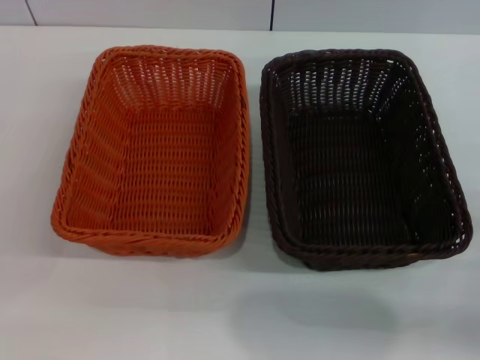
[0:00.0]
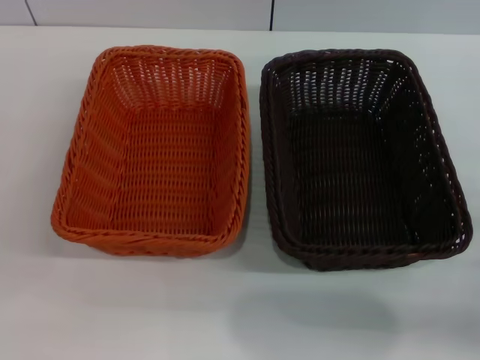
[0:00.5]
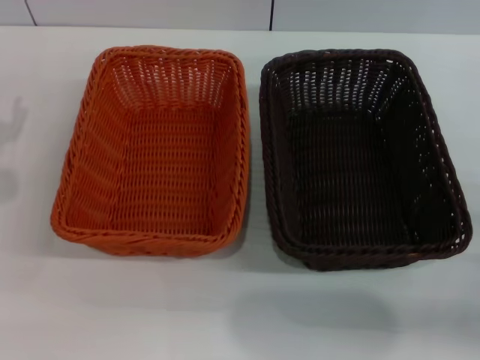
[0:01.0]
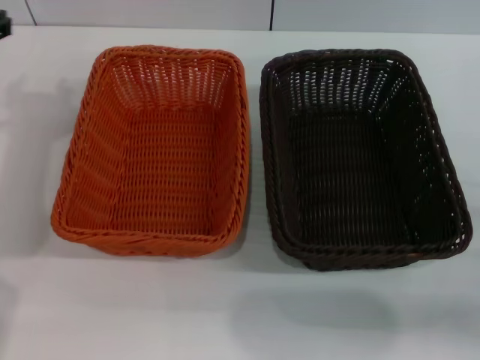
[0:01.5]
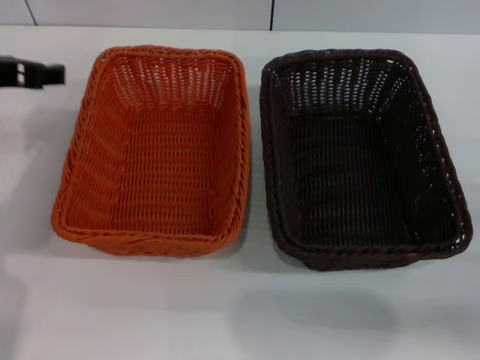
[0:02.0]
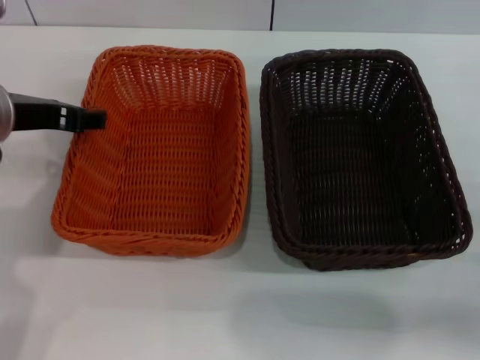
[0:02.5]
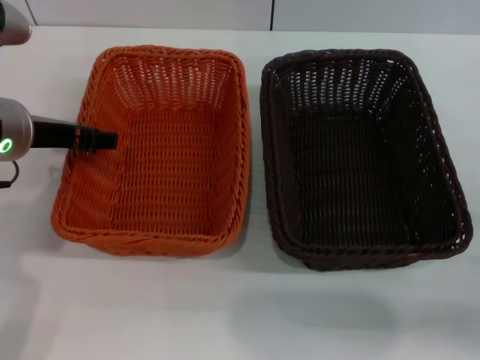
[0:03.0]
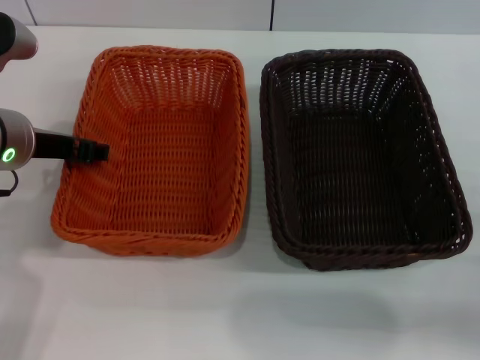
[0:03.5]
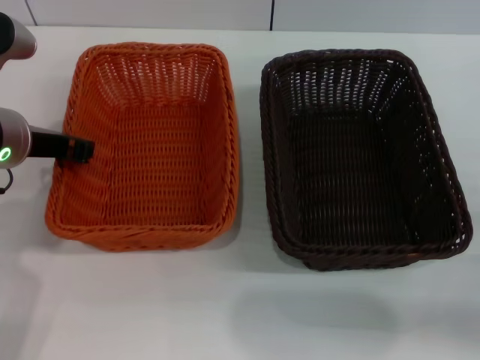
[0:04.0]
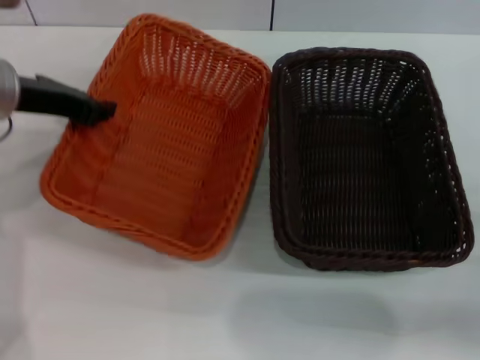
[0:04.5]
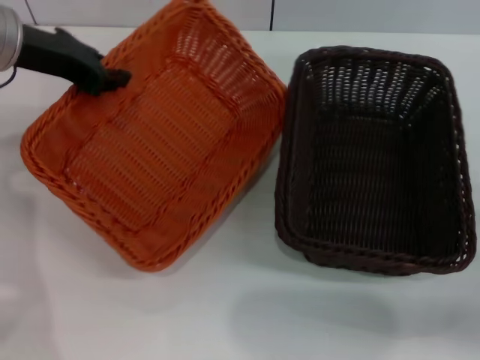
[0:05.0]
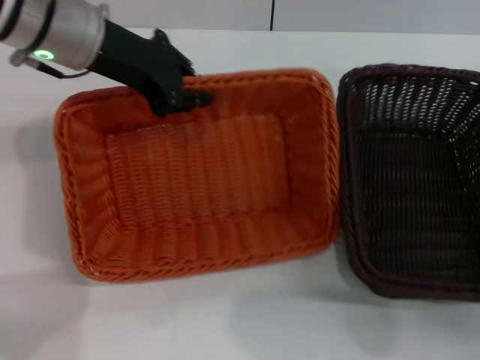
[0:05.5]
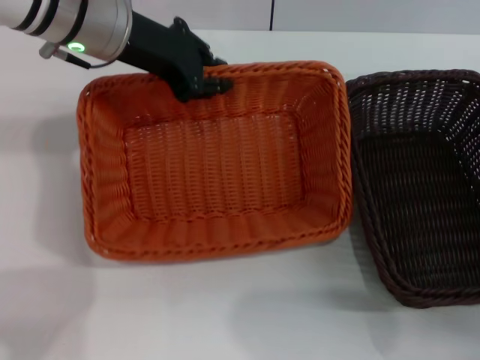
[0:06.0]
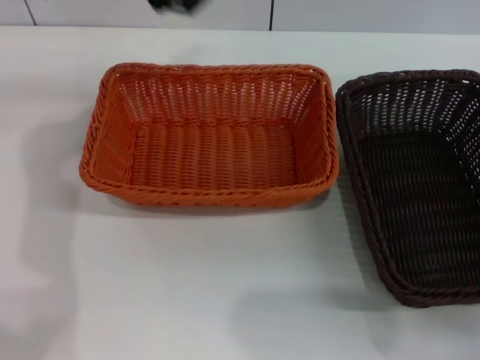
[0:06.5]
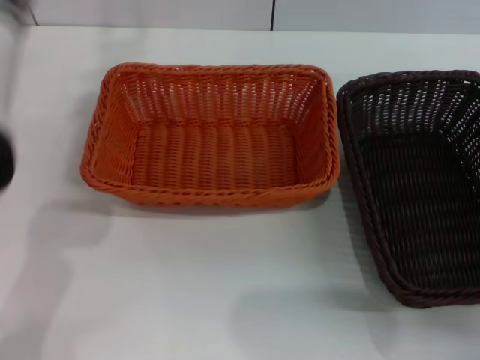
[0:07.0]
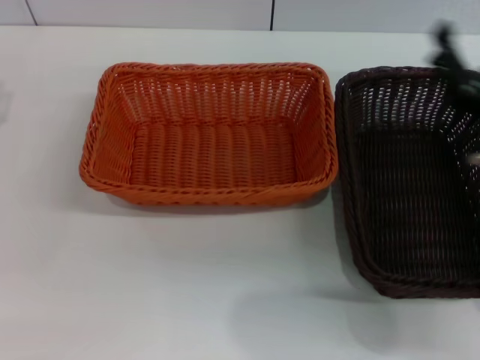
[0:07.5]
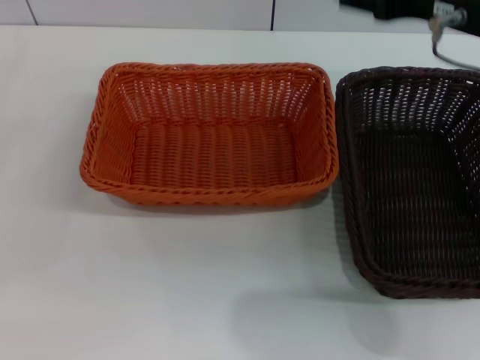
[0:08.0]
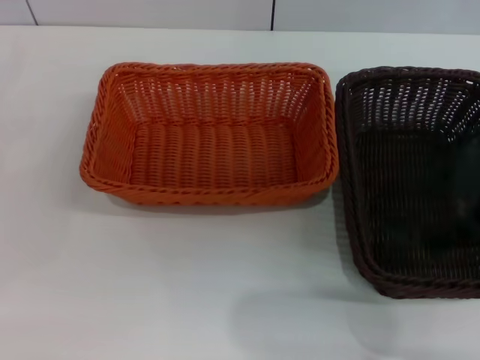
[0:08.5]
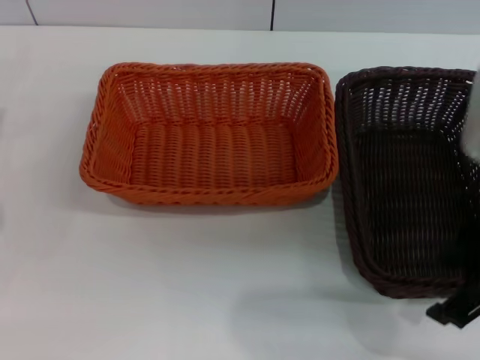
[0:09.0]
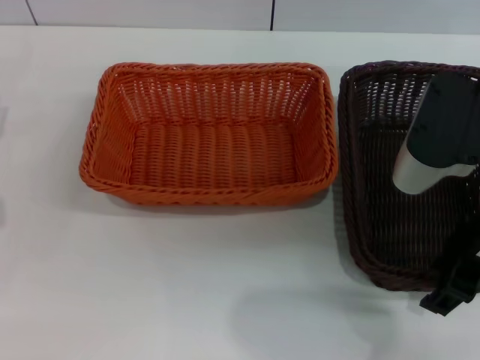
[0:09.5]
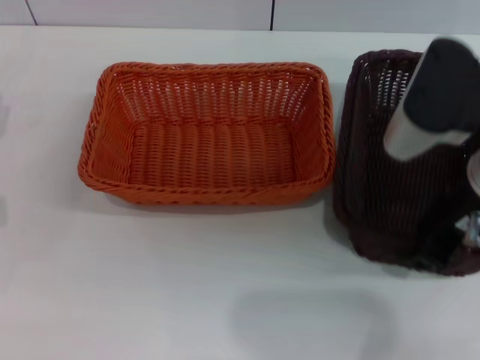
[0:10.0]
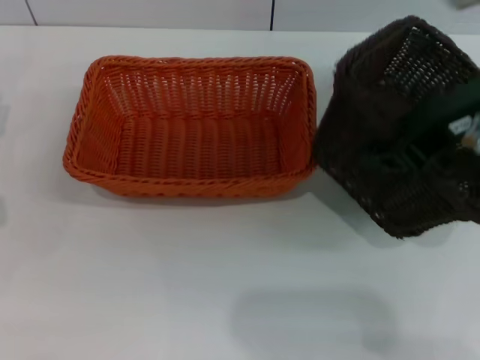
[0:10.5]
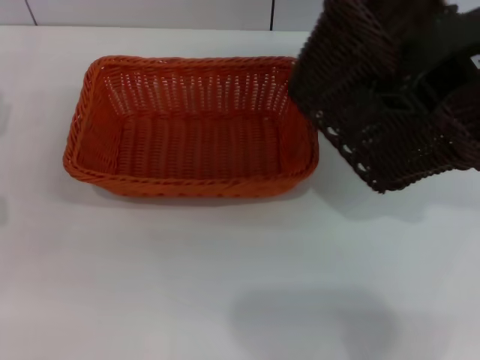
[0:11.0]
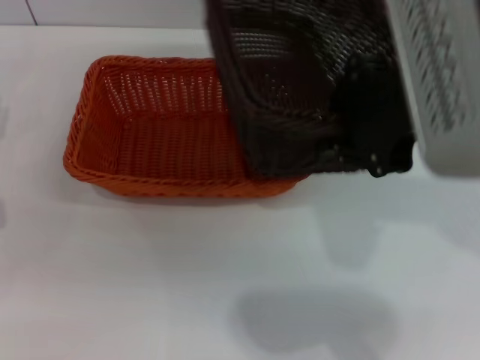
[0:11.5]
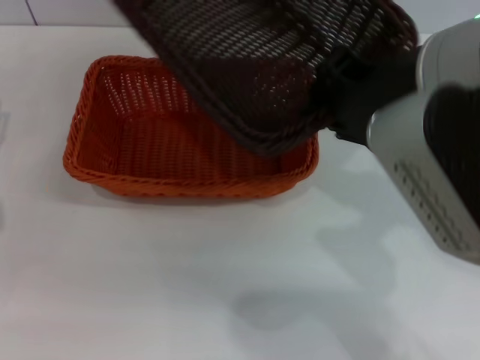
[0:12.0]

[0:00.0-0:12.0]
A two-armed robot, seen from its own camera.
Step, 0:00.0 to 0:04.0: Pick up the light basket with the left gripper.
Step, 0:04.5 to 0:06.0: Place the light basket in the center of view with the left gripper.
Step, 0:06.5 to 0:10.0: Pick up the dark basket with the right gripper.
0:00.0 to 0:02.0: The left gripper heads upward, forward and to the right, covering roughly 25 cm.
0:02.0 to 0:04.0: The left gripper travels downward by roughly 5 cm, and closes its fingers.
0:04.0 to 0:06.0: The left gripper heads forward, to the right and upward, covering about 15 cm.
0:06.0 to 0:08.0: The left gripper travels to the left, backward and downward by roughly 25 cm, and opens. The right gripper is displaced upward, to the left and forward by about 25 cm.
0:08.0 to 0:10.0: The right gripper goes about 5 cm downward, and closes its fingers.
0:10.0 to 0:12.0: The right gripper goes about 10 cm upward and to the left, and closes its fingers.

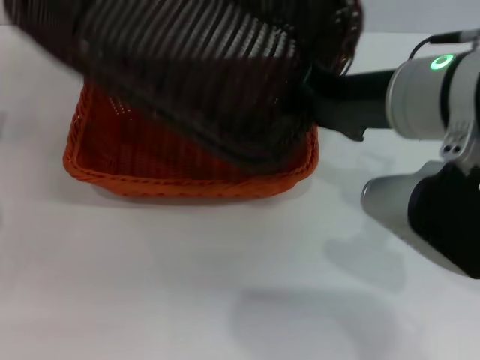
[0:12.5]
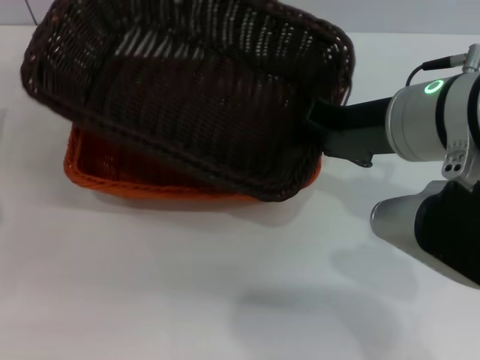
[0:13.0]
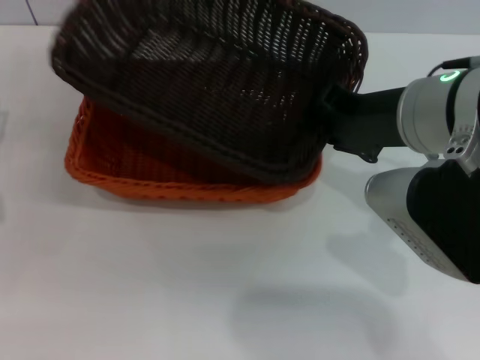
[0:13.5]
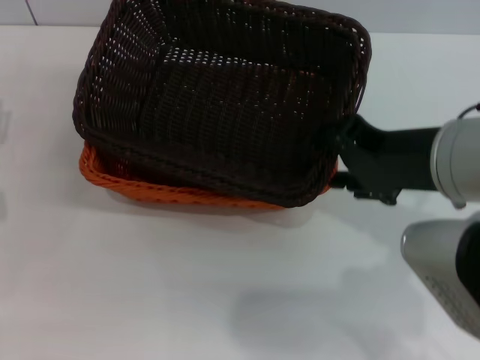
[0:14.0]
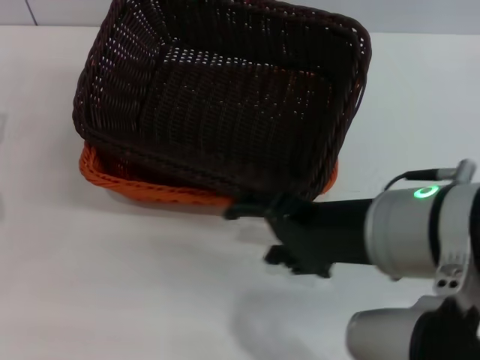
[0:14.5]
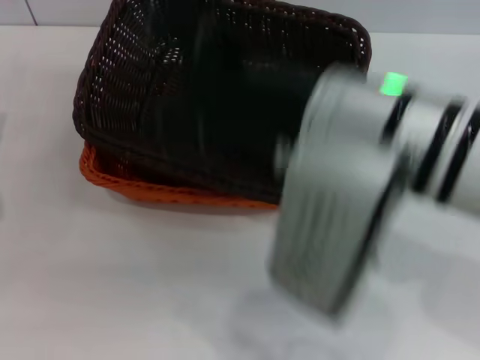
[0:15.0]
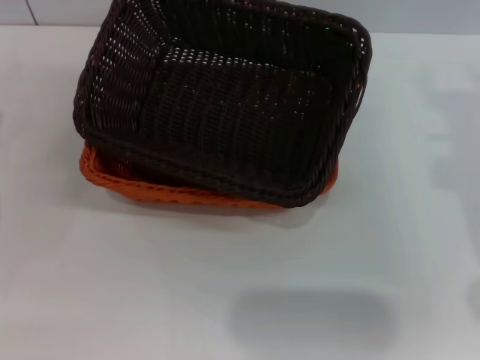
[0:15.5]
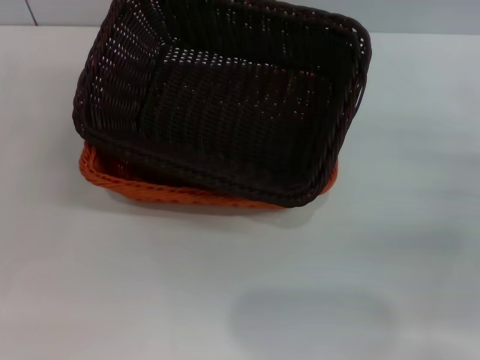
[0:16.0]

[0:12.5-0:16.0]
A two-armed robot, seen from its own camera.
0:12.5 to 0:14.5: The right gripper travels backward by roughly 10 cm, and opens.
0:14.5 to 0:16.0: The right gripper shifts roughly 25 cm to the right and downward.

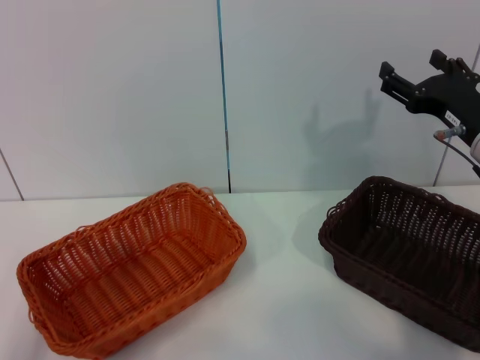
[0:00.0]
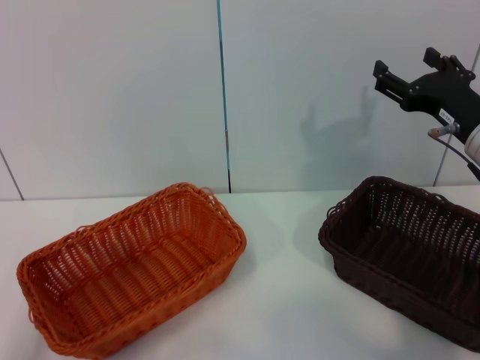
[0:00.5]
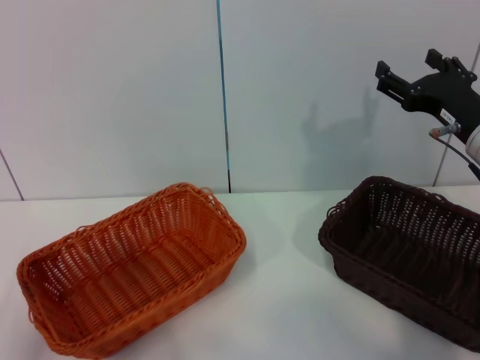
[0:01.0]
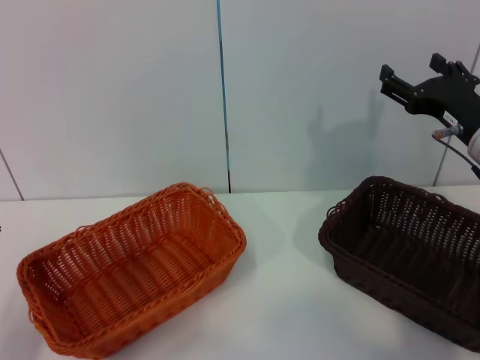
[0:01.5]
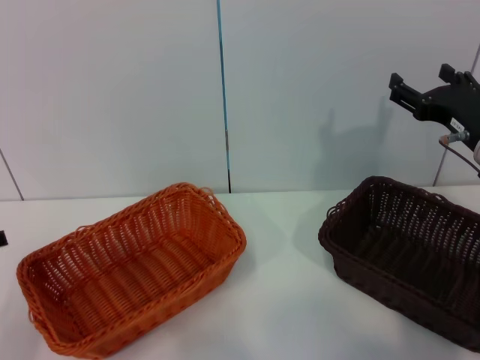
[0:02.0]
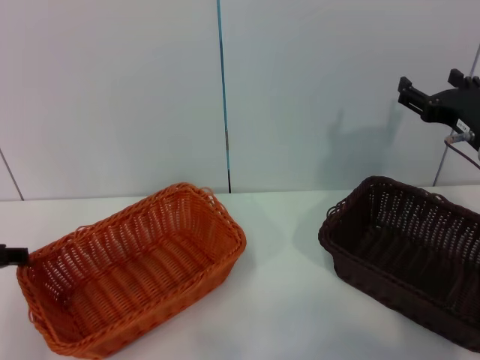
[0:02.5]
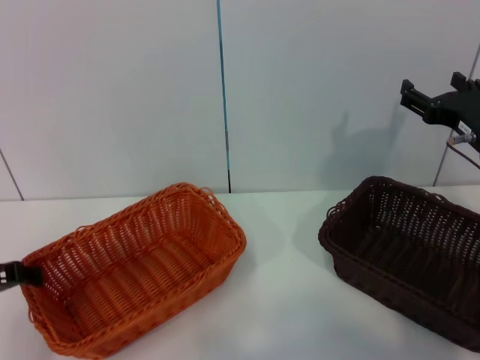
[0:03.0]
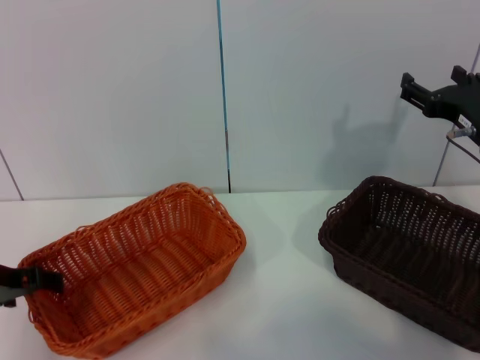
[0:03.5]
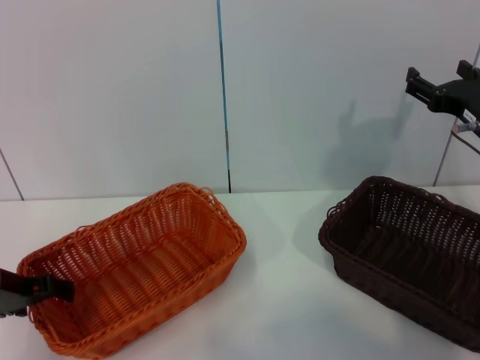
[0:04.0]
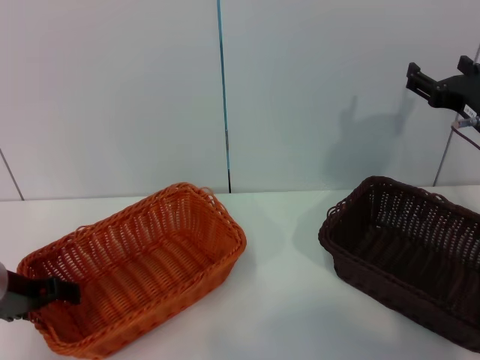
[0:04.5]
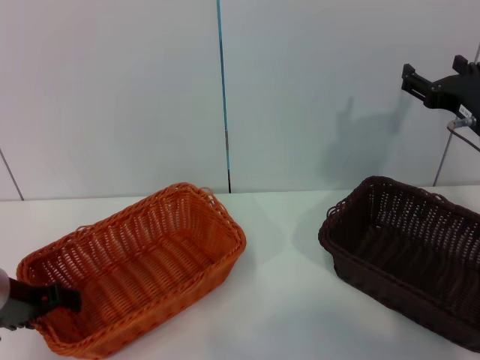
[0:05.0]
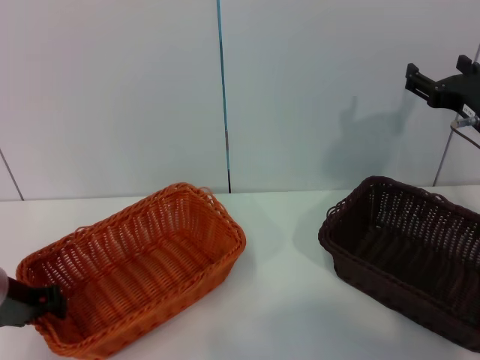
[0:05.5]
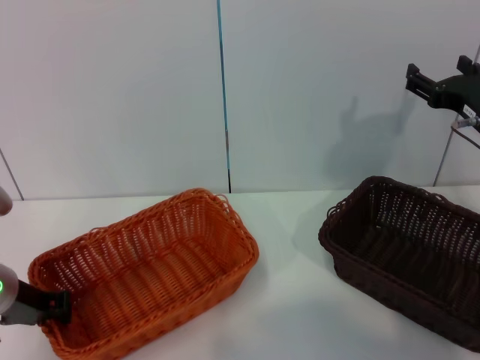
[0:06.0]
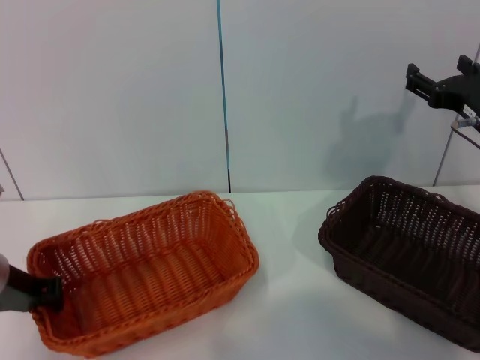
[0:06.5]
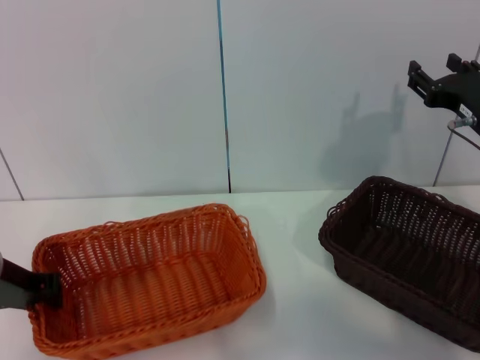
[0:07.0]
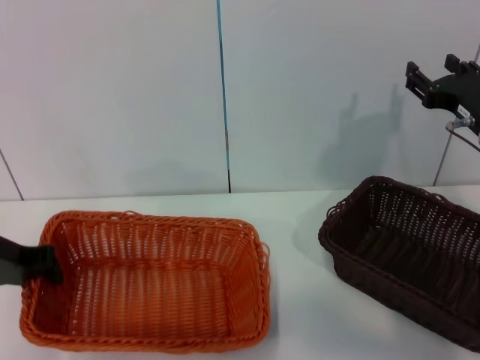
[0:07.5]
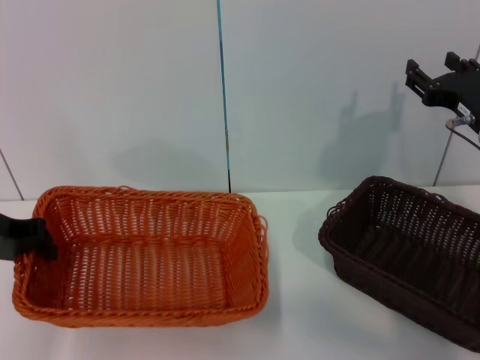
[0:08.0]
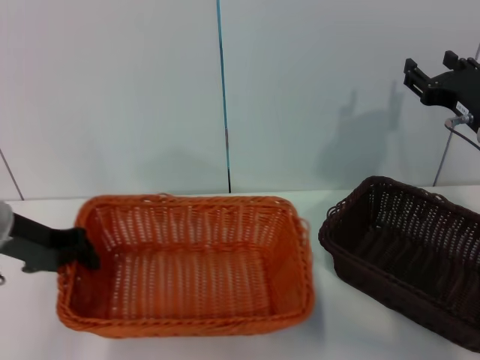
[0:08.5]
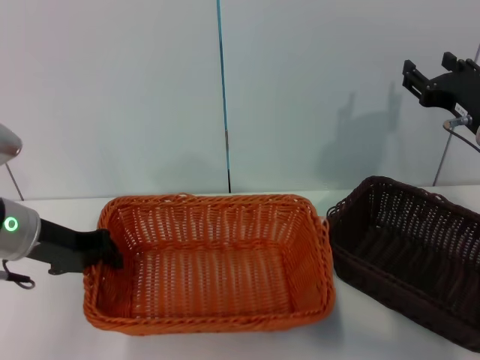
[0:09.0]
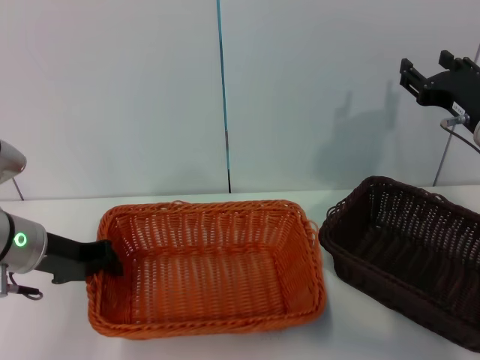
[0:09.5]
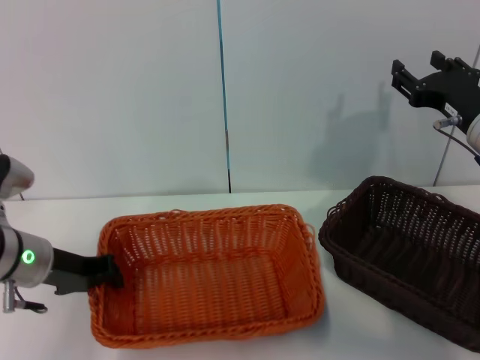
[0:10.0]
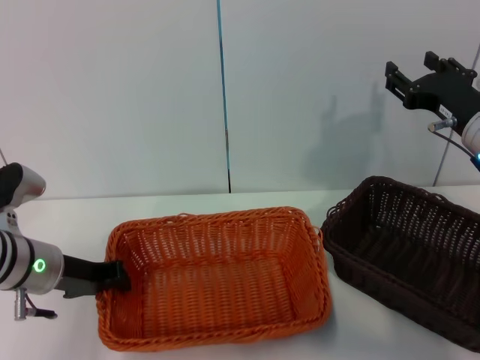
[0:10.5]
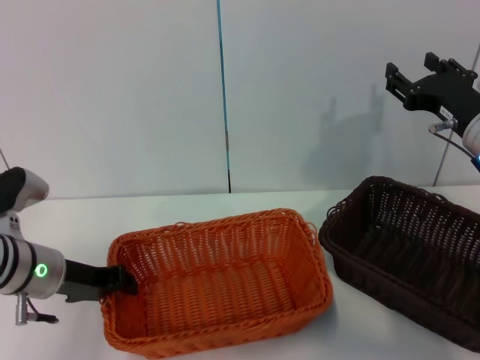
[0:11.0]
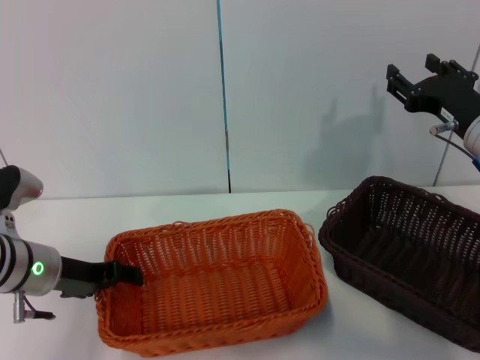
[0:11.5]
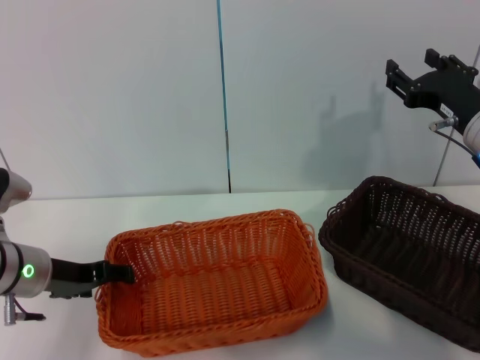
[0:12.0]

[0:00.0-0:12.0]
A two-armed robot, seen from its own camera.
Step, 0:00.0 to 0:07.0: Pick up the light basket with the left gripper.
Step, 0:07.5 to 0:11.5: Place the light basket in the center of view with the left gripper.
0:02.0 to 0:04.0: The left gripper is displaced forward by approximately 5 cm.
0:04.0 to 0:06.0: The left gripper closes.
0:06.0 to 0:08.0: The left gripper goes approximately 10 cm upward.
0:08.0 to 0:10.0: The left gripper shifts some 10 cm downward and to the right.
0:10.0 to 0:12.0: The left gripper opens.
